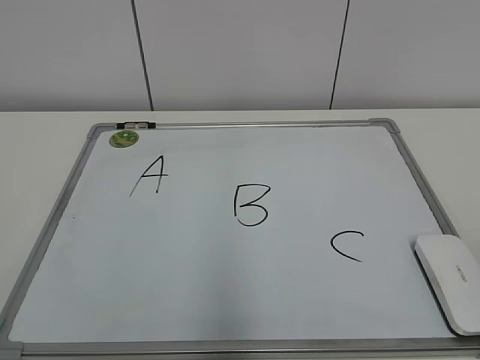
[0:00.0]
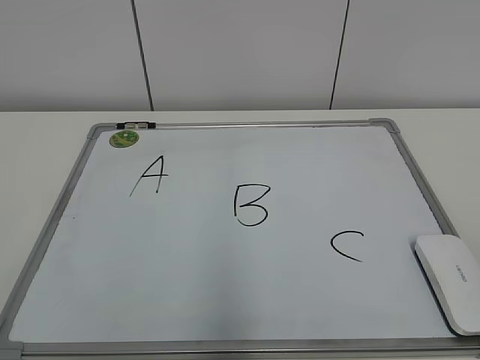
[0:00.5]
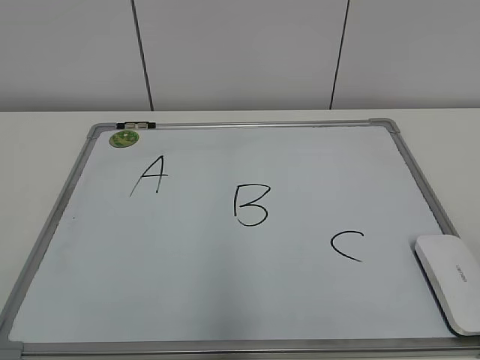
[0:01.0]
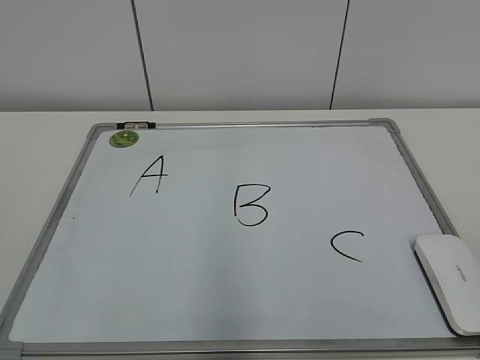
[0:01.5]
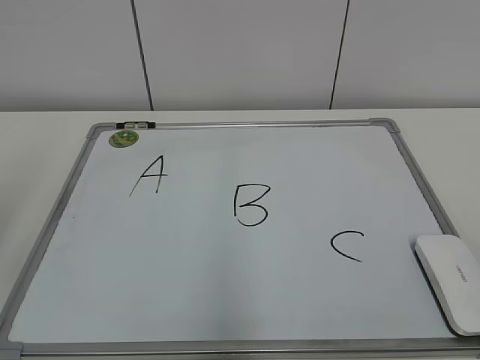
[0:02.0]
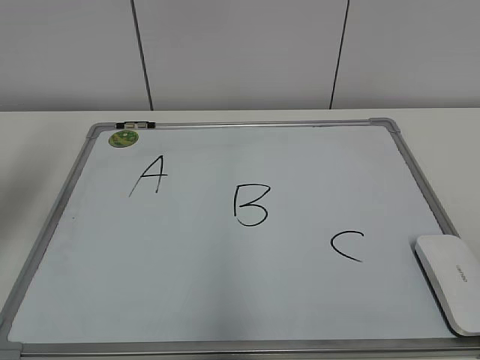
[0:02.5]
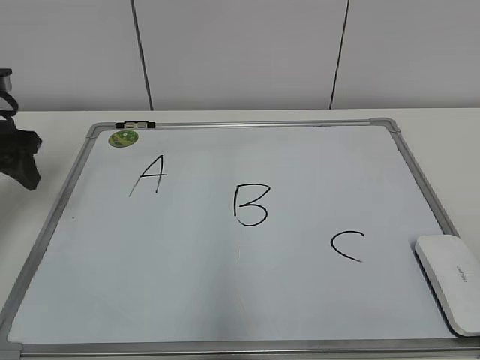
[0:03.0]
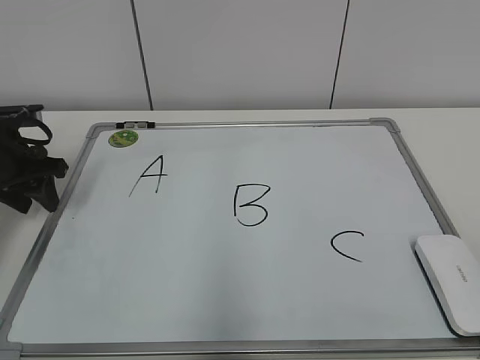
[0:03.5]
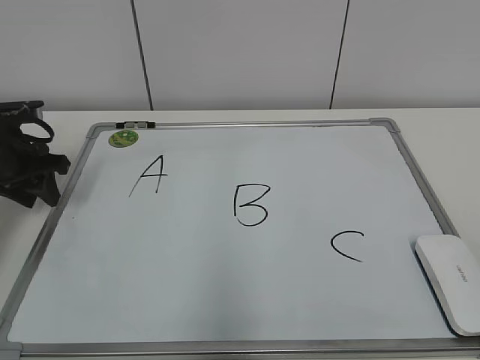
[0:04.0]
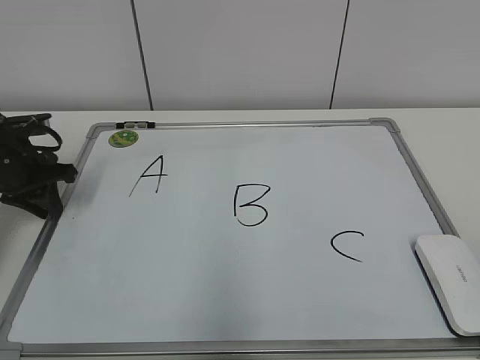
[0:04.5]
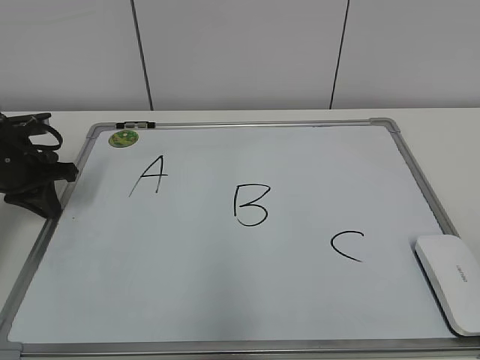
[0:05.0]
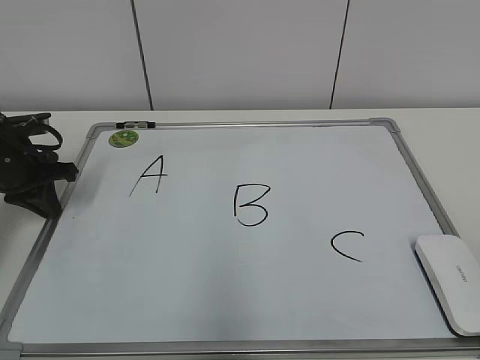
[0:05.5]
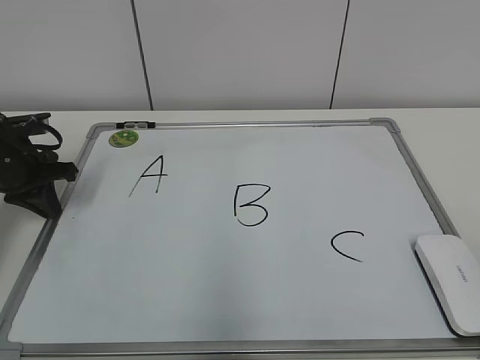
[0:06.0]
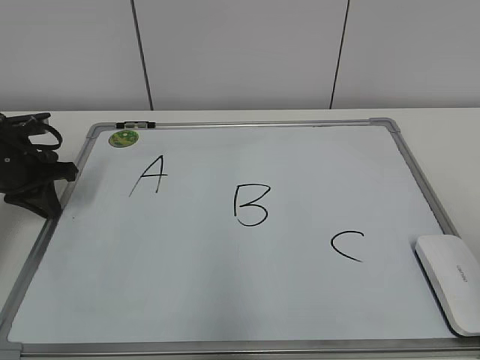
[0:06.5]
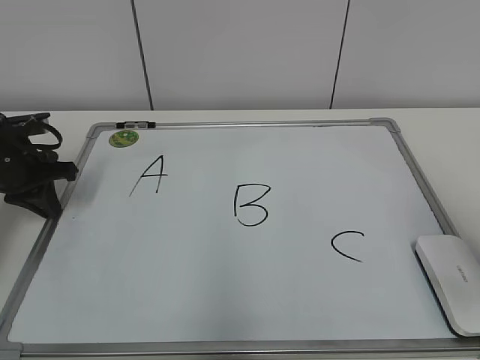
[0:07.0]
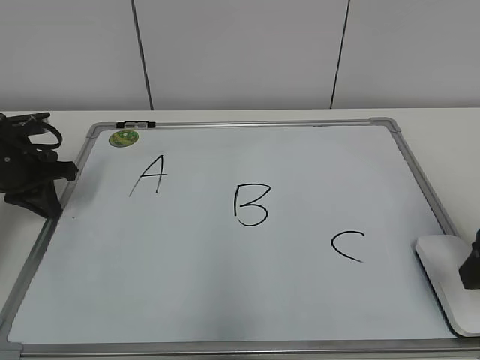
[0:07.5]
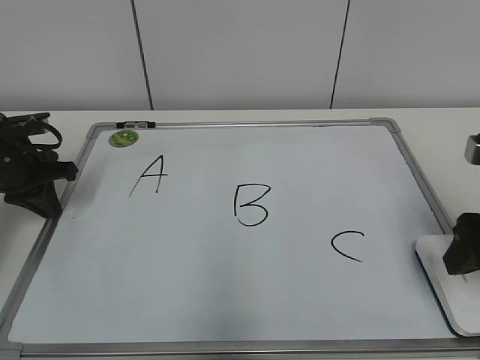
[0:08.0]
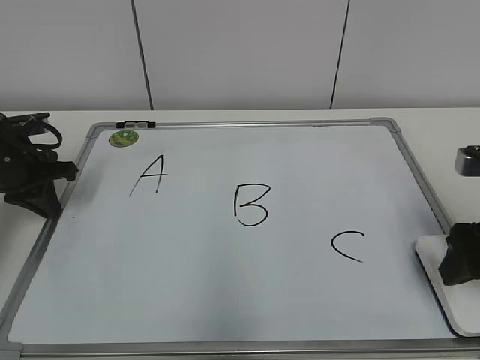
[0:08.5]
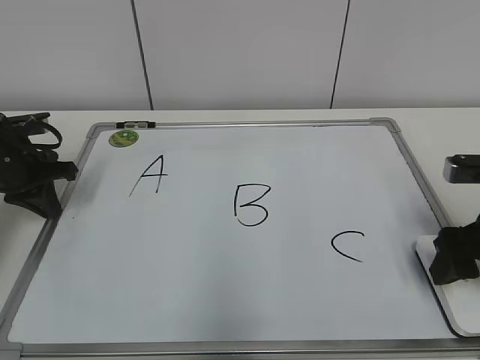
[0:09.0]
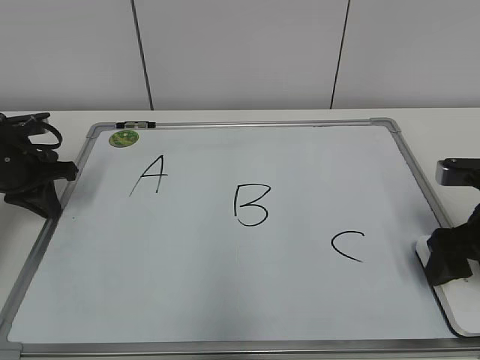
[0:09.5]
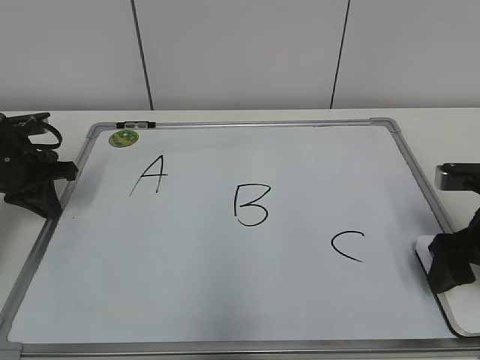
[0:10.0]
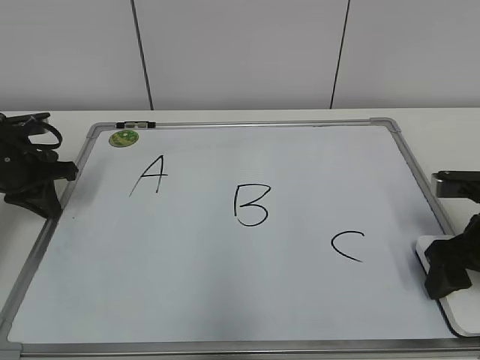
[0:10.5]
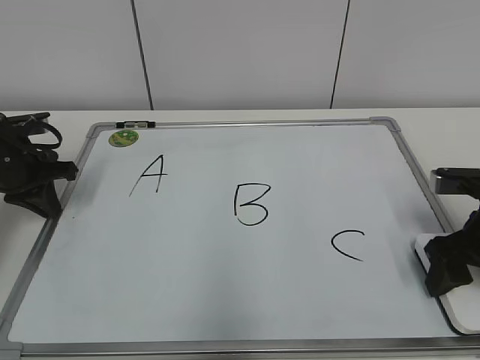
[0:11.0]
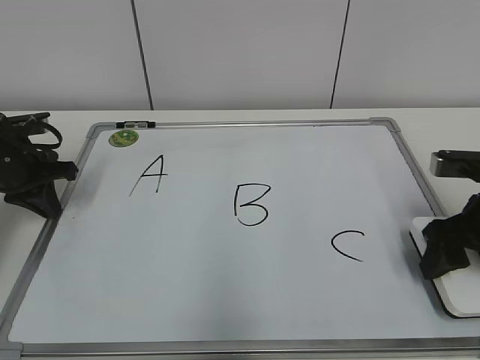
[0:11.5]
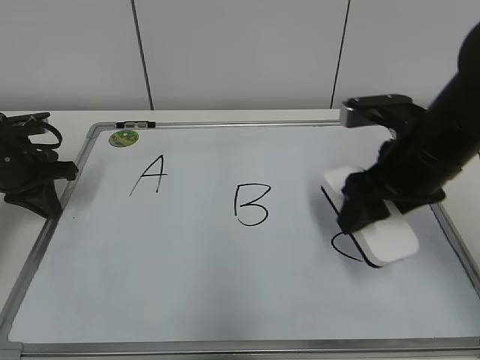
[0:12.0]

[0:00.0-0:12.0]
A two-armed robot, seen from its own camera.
Task of the whole recording: pick up the eraser on the blackboard and erase the letter "B".
Step, 0:00.0 to 0:05.0: Hold the drawing board steady with your left hand.
Step, 0:05.5 to 0:10.5: Grab the eraser with your right hand.
0:02.0 to 0:04.0: The left gripper is displaced forward and downward by some 30 cm, and closes up.
0:04.0 to 0:06.0: The left gripper closes up.
0:06.0 to 0:08.0: The right gripper goes roughly 25 cm forward.
0:08.0 to 0:10.0: The right gripper moves some 5 cm.
0:10.0 to 0:12.0: The right gripper goes about 10 cm to the left and upward.

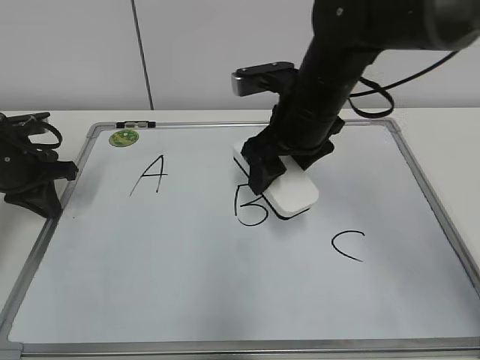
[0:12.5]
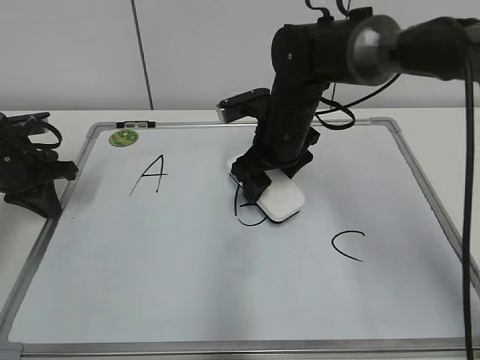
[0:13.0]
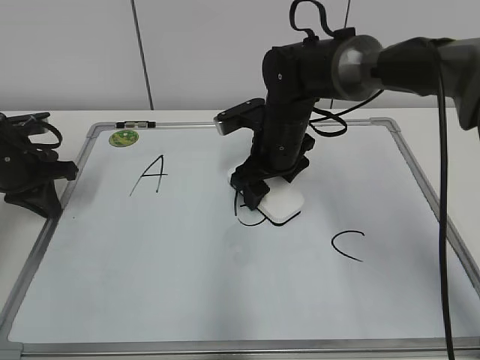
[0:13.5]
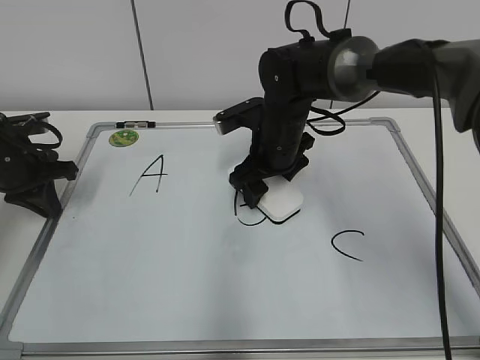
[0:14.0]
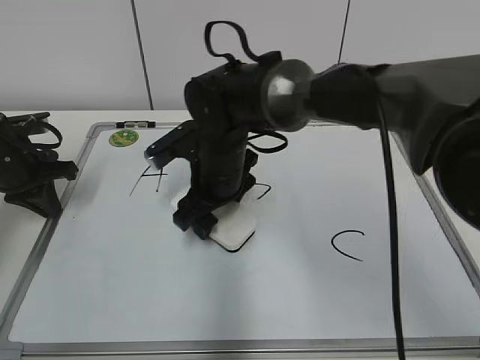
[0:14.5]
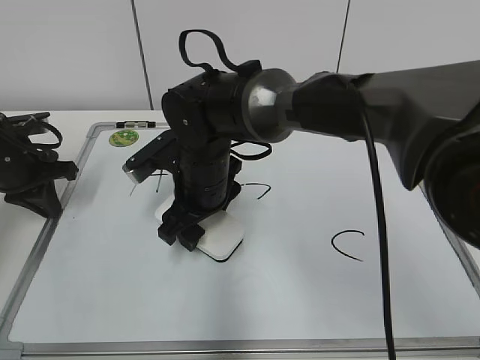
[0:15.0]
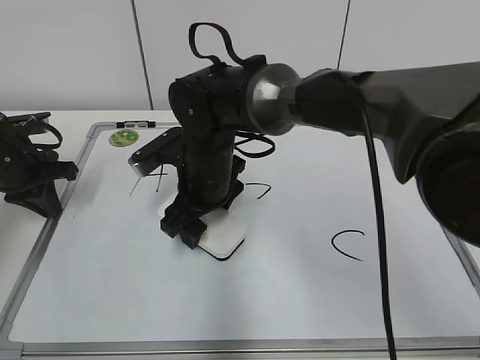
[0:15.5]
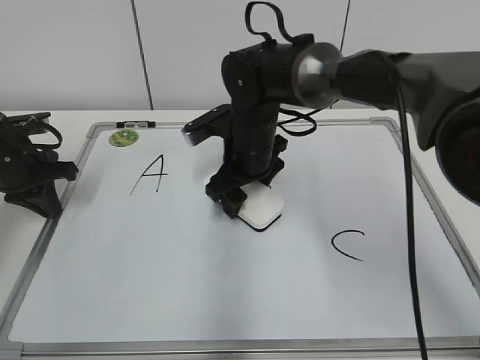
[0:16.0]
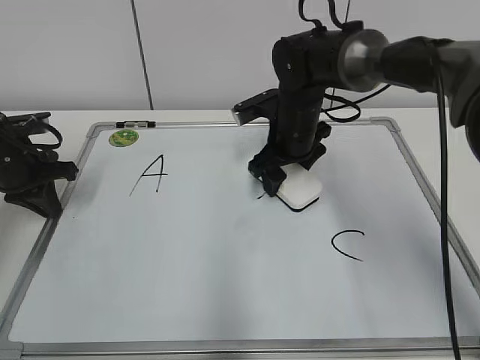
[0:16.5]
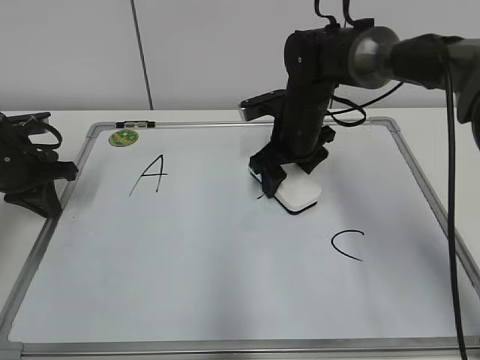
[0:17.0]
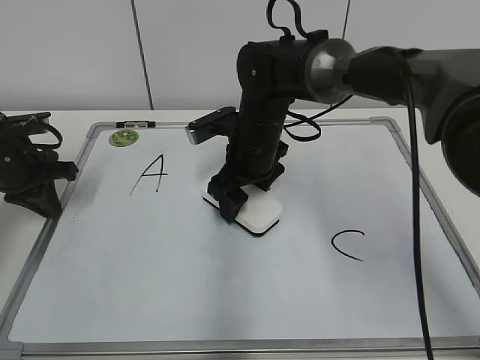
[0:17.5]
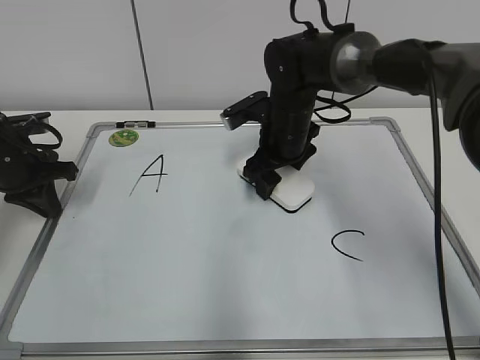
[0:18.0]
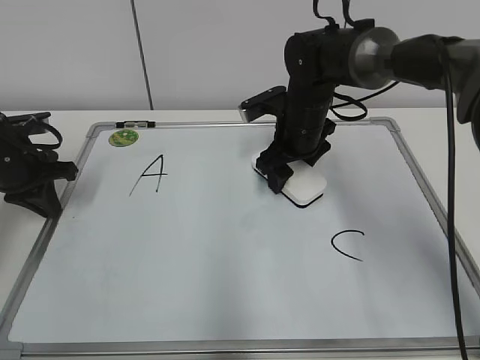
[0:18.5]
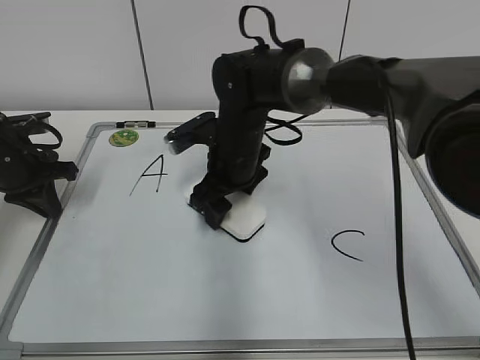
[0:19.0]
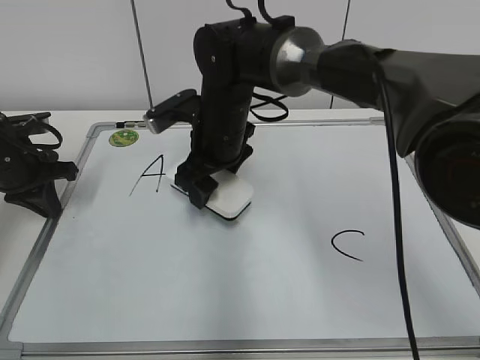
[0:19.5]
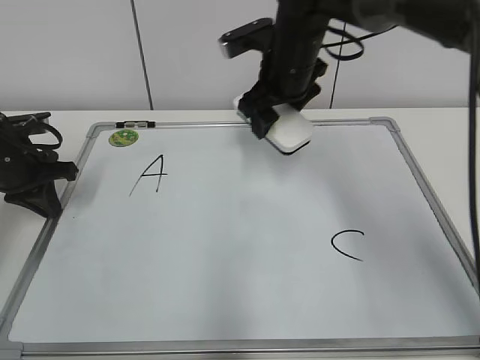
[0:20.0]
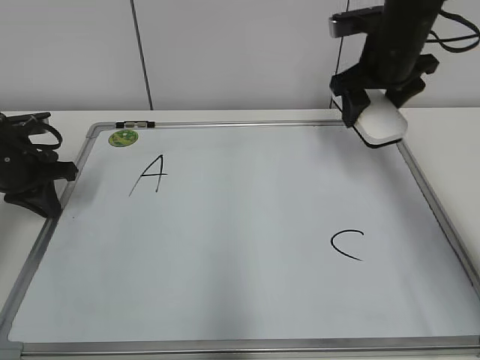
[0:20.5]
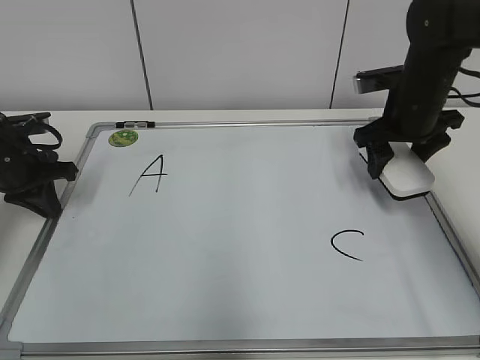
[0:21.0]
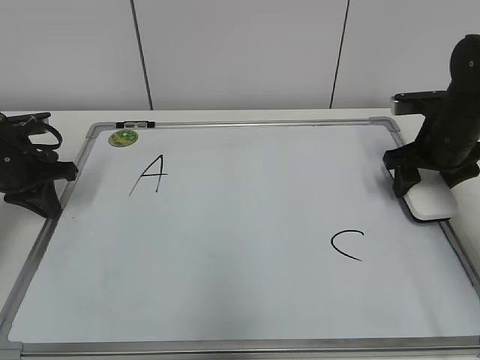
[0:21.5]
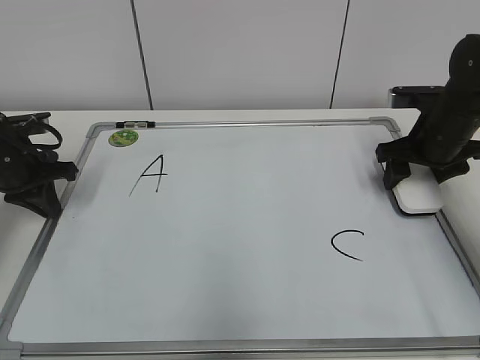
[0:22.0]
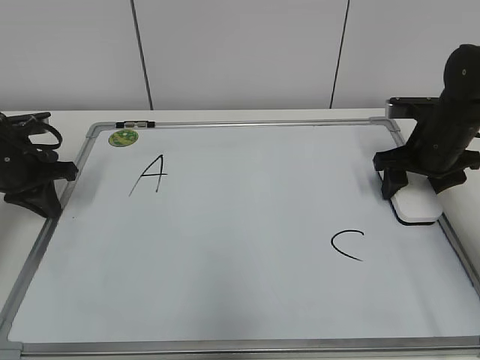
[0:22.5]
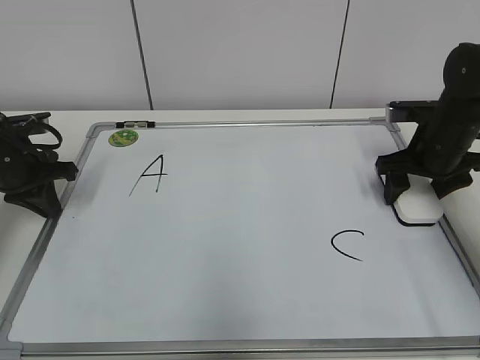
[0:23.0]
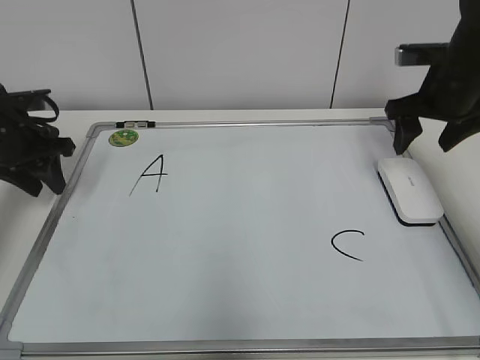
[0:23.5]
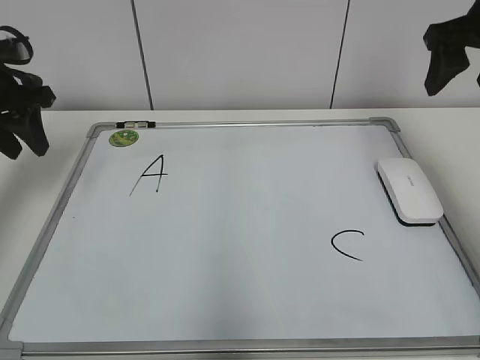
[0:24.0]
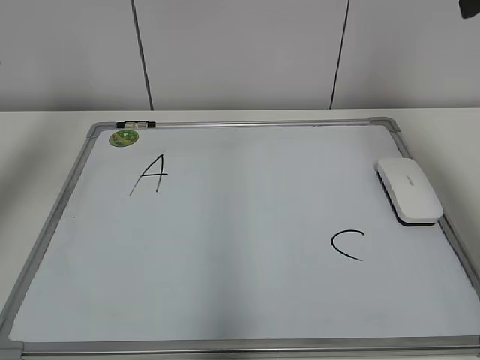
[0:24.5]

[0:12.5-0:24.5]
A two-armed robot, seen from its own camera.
Task of the whole recording: pick up the eraser on the blackboard and erase the letter "B".
Step, 0:12.5 to 0:17.5: Erase the letter B with your right hand.
Step, 0:18.0 to 0:23.0: Put down the eraser with your right hand.
0:12.5 to 0:14.5: The right gripper travels to the left and downward by some 15 cm.
0:14.5 to 0:16.5: The right gripper goes about 10 cm to the right and forward.
0:18.5 to 0:20.5: The right gripper moves upward and to the right, approximately 15 cm.
0:20.5 to 0:22.5: The right gripper moves downward and to the right, some 15 cm.
0:22.5 to 0:24.5: Both grippers travel together upward, approximately 25 cm. The left gripper opens.

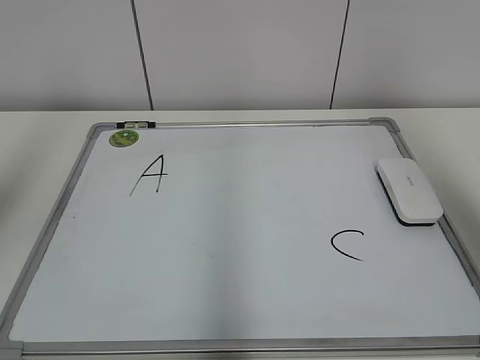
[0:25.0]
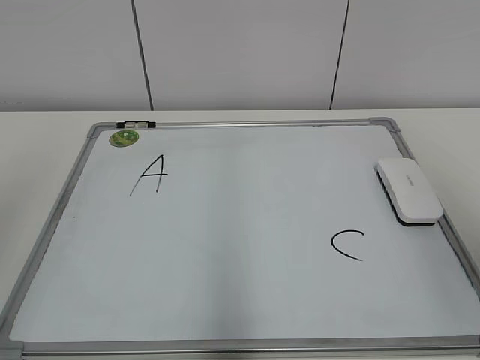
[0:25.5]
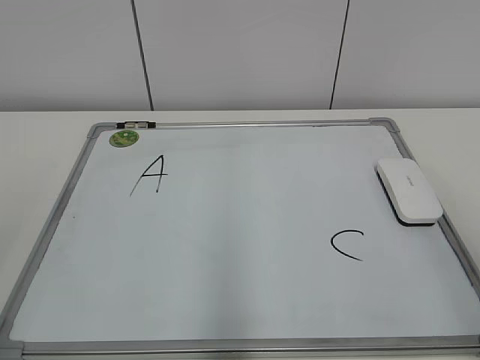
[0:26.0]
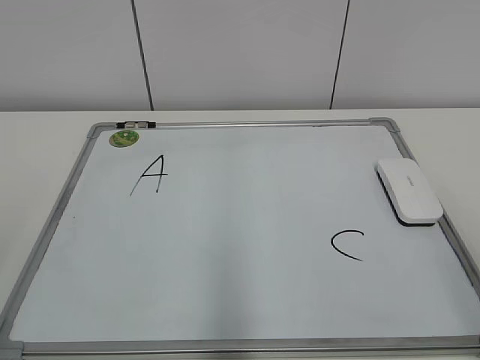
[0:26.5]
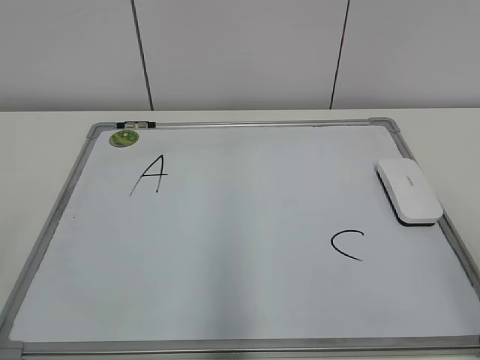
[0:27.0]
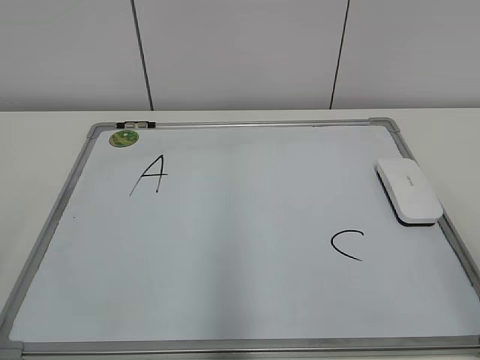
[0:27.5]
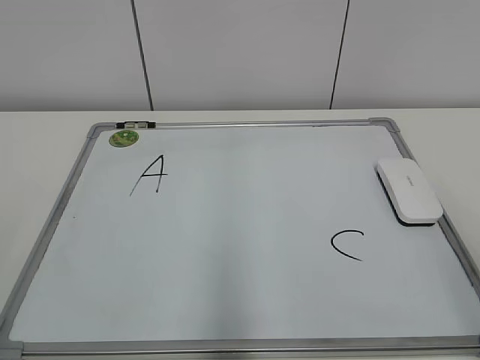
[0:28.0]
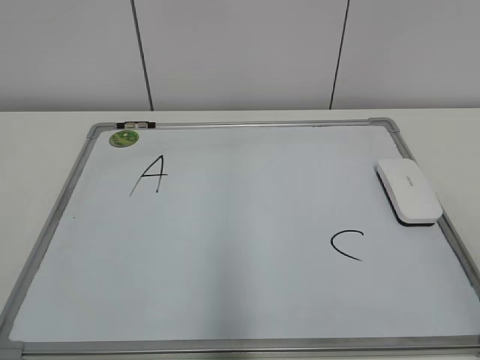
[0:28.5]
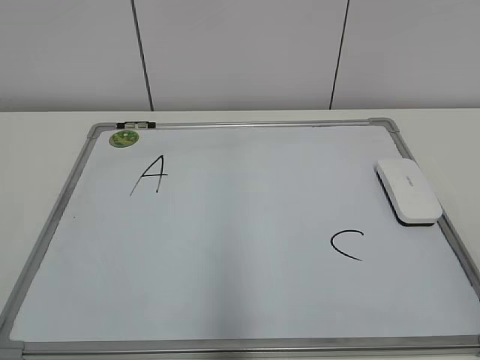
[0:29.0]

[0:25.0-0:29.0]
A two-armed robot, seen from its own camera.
Task of the whole recording: pick up the eraser on the blackboard and erase the letter "B".
0:25.0 to 0:27.0: The grippers both shift downward and backward by approximately 25 cm.
